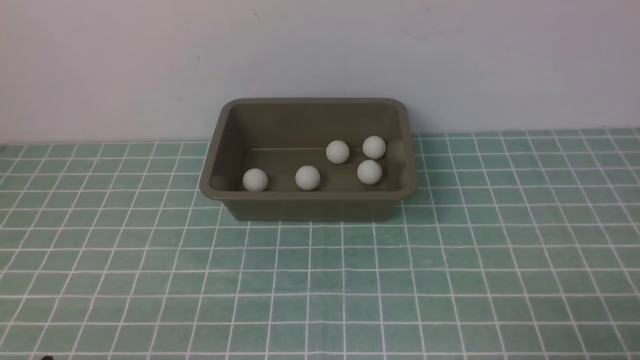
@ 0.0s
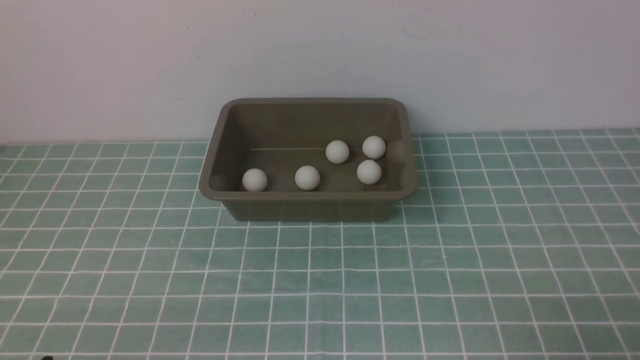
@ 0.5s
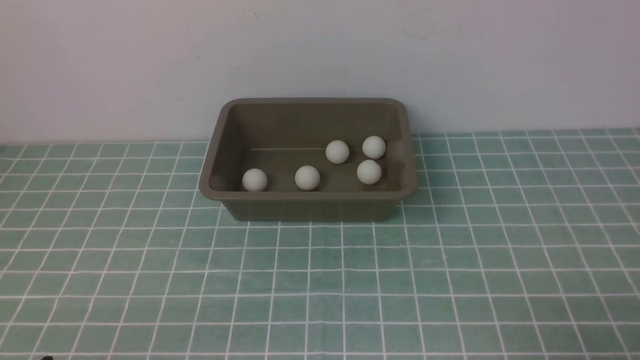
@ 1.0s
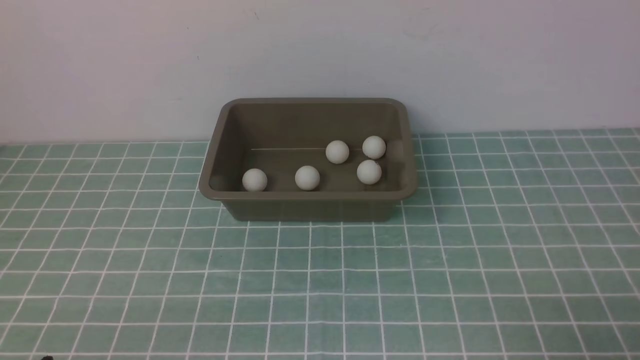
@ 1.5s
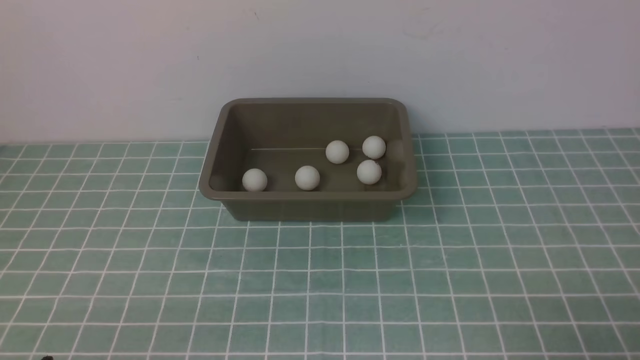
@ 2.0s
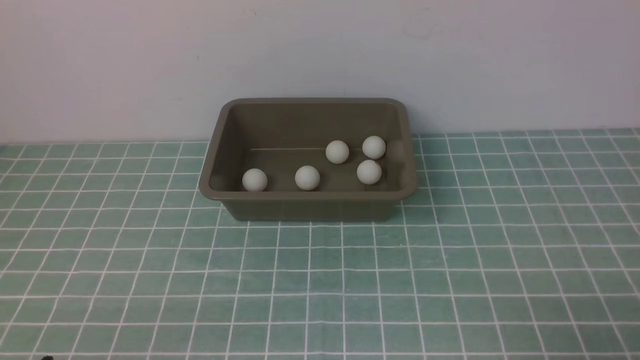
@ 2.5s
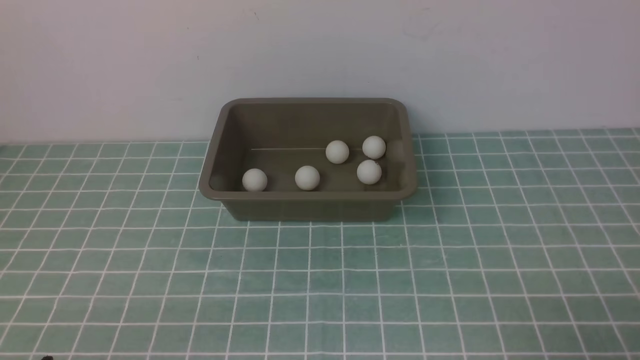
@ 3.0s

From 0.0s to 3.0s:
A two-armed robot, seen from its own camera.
From 0.0s to 3.0s: The two grippers keep their place.

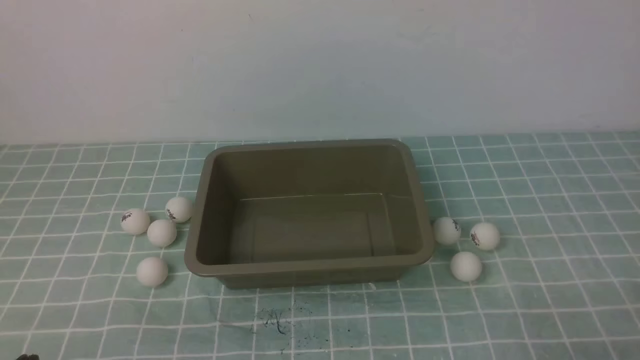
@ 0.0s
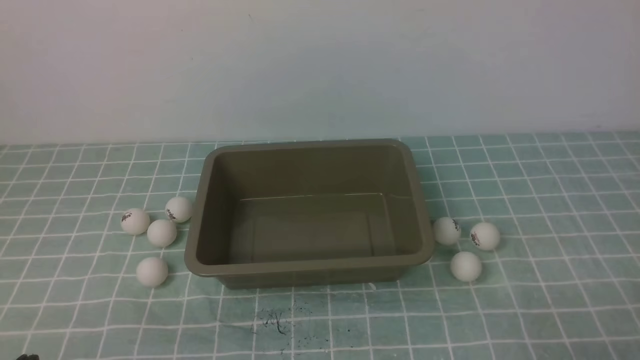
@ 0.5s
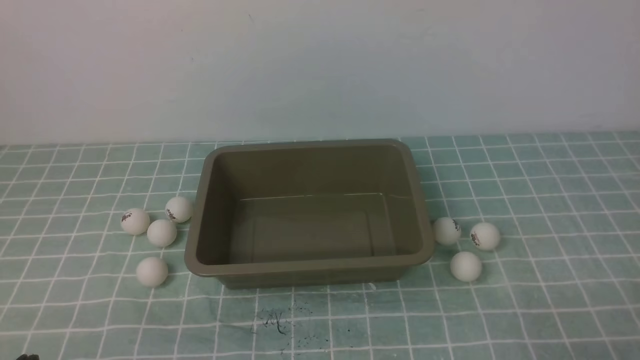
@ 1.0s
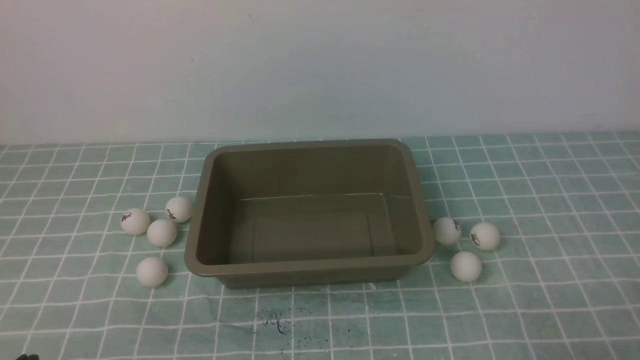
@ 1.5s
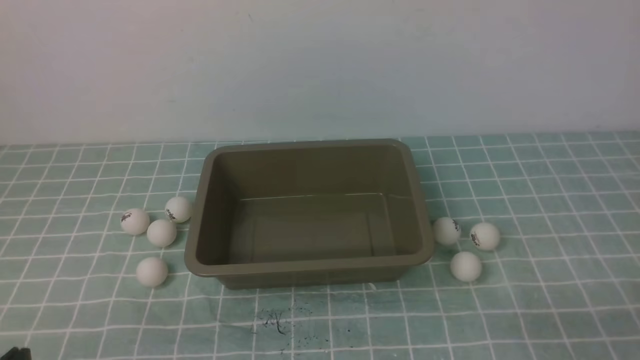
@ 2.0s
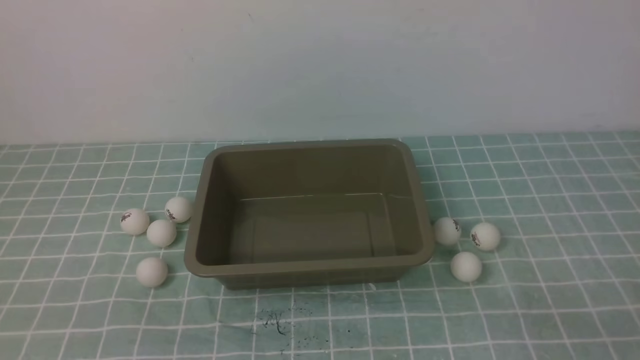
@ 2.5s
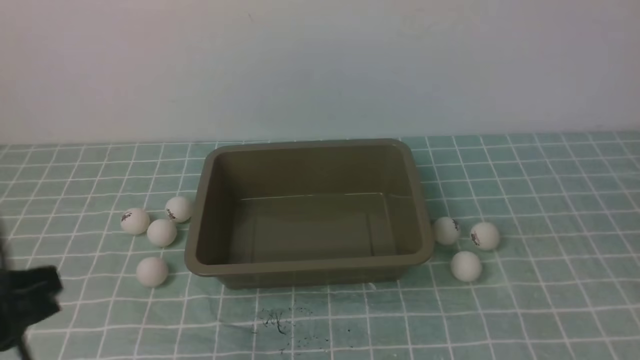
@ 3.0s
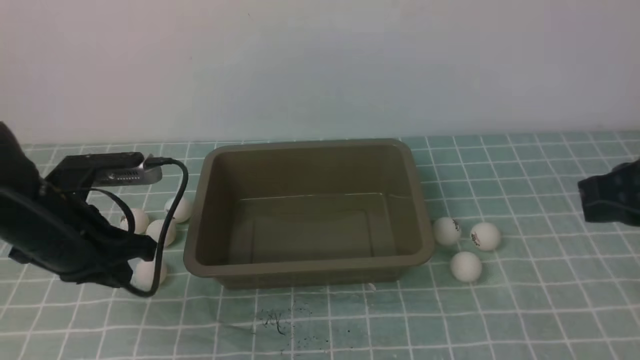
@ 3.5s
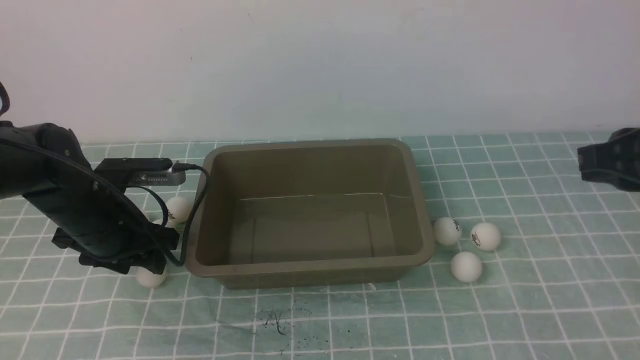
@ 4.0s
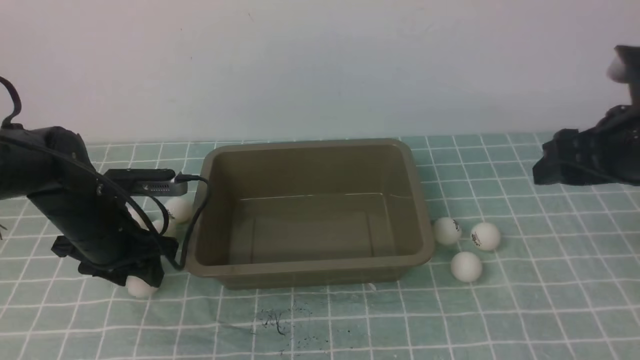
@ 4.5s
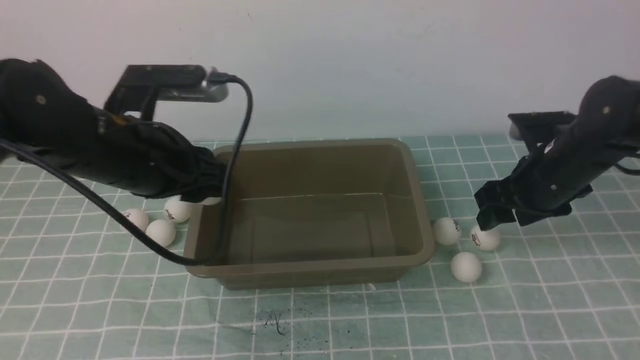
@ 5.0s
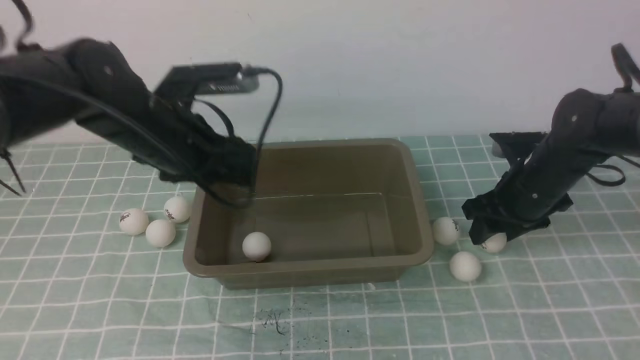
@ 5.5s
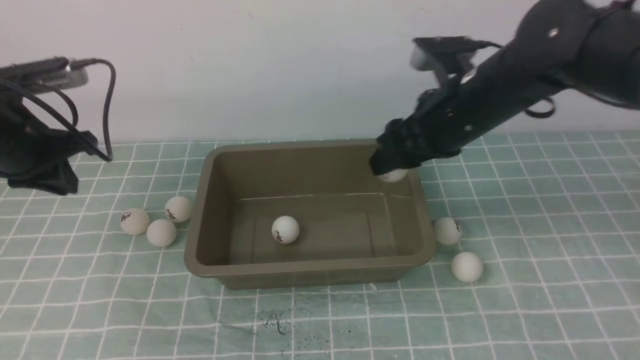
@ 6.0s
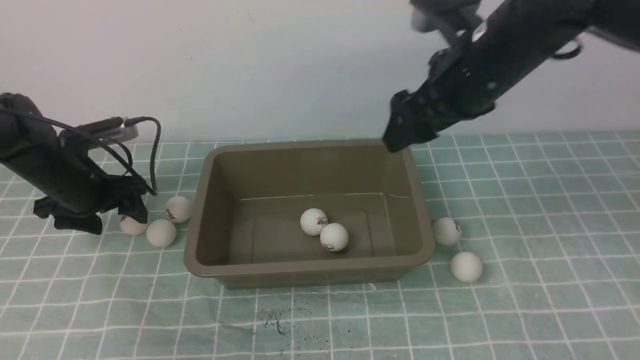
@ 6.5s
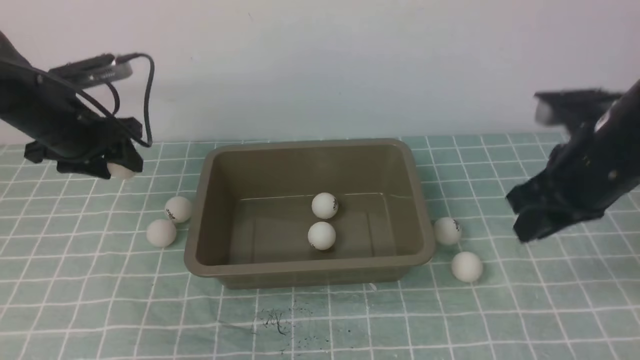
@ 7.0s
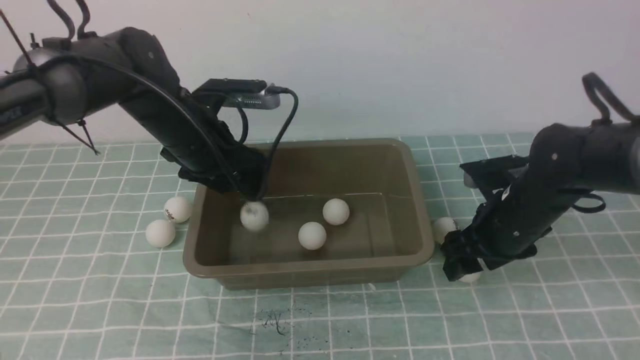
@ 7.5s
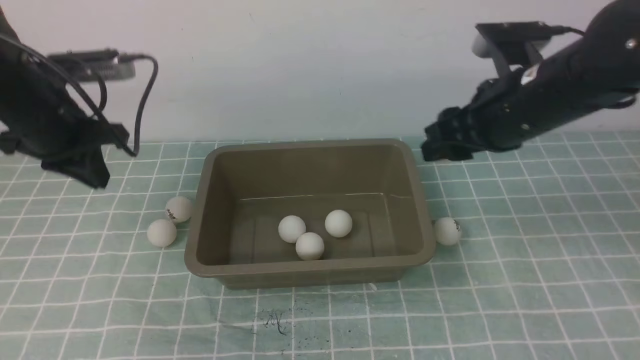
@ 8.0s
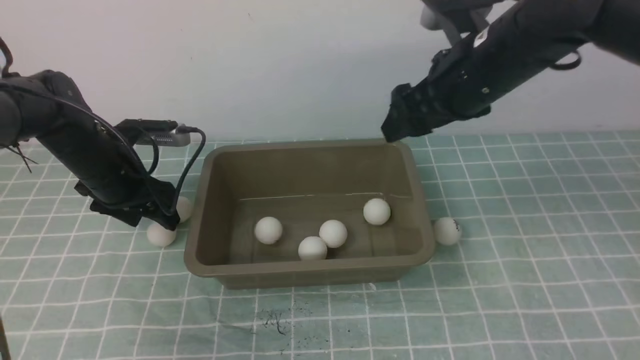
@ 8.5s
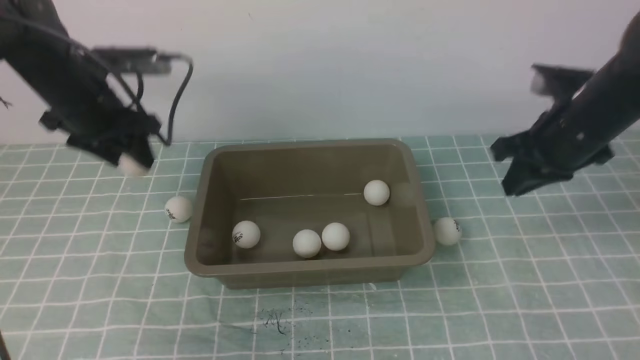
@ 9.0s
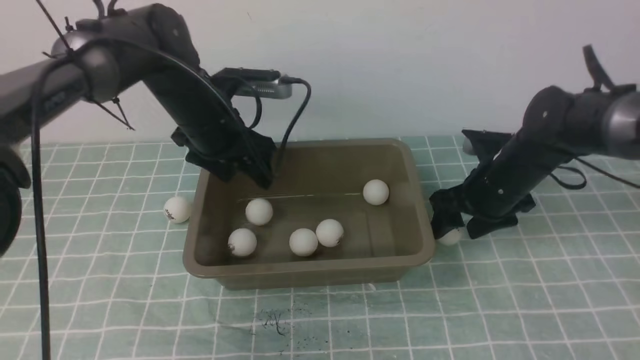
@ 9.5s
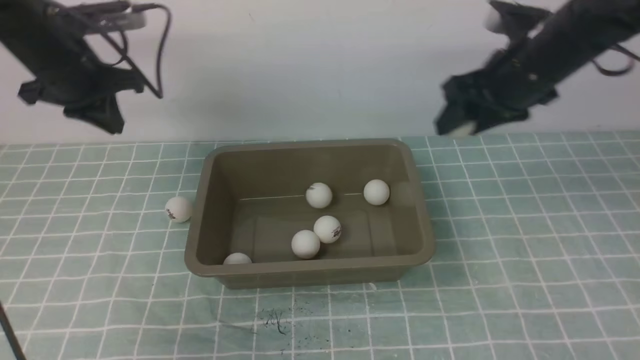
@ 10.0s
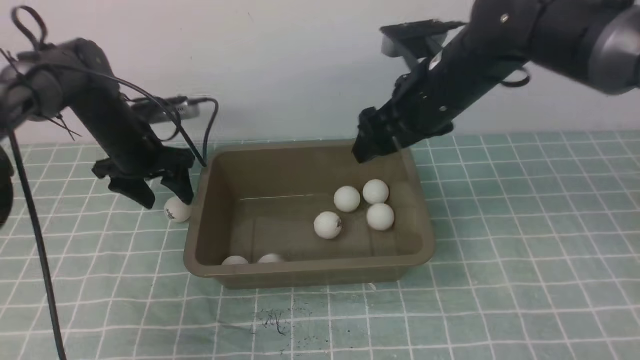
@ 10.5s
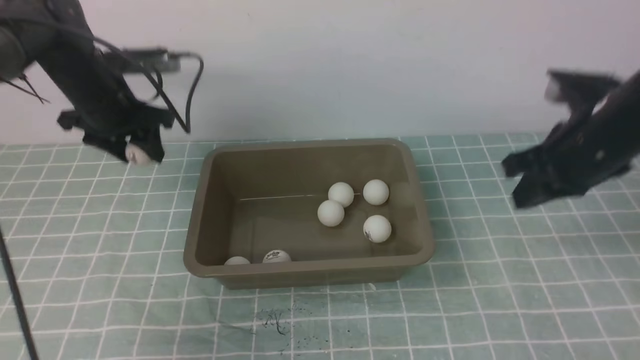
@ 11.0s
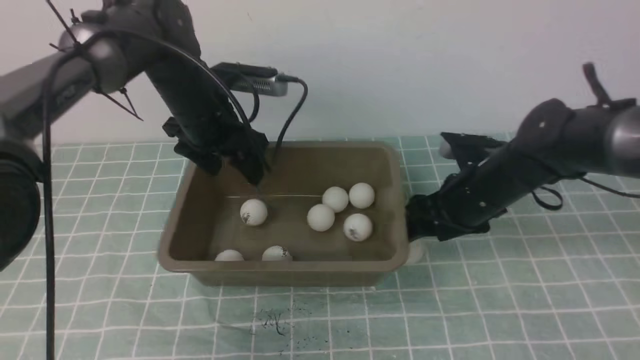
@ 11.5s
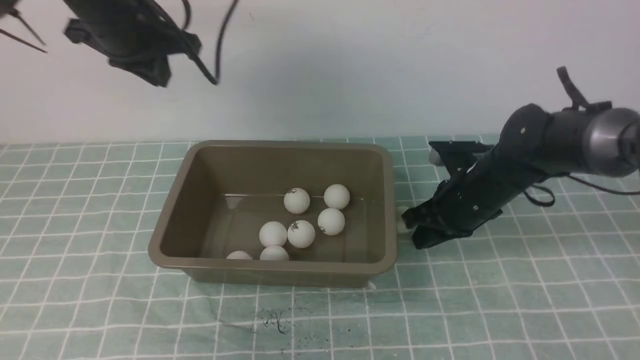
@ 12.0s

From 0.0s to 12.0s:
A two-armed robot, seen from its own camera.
Step, from 0.0s to 4.5s: use the left arm to clamp the table tennis ball closest to it.
Step, from 5.5s to 6.0s: use the right arm to clamp the table tennis ball closest to it.
Step, from 11.0s to 11.5s: use the left arm to put the table tennis ball into the box.
From 2.0s to 4.0s: The left gripper heads forward, covering roughly 25 cm, and opens its fingers; the right gripper goes some 25 cm forward and upward.
From 4.0s to 6.0s: The left gripper travels upward and to the left by roughly 10 cm, and closes, while the right gripper moves to the left and forward, approximately 20 cm, and opens its fingers.
From 6.0s to 8.0s: The left gripper travels to the right and back again, about 15 cm each way, and opens and closes again. The right gripper moves up and down over roughly 15 cm, changing direction 2 times.
From 8.0s to 10.0s: Both grippers move forward, roughly 5 cm. The right gripper goes downward and returns, approximately 10 cm each way, and closes and opens again. Meanwhile the left gripper reaches roughly 10 cm to the right, then returns, and opens, then closes once more.
From 10.0s to 12.0s: The left gripper shifts about 10 cm upward, and opens and closes again. Meanwhile the right gripper heads downward, covering about 10 cm, and closes its fingers.

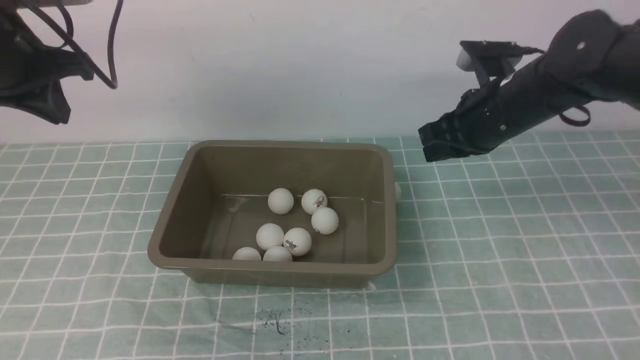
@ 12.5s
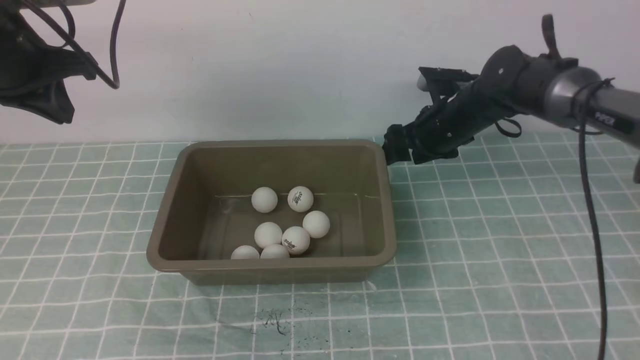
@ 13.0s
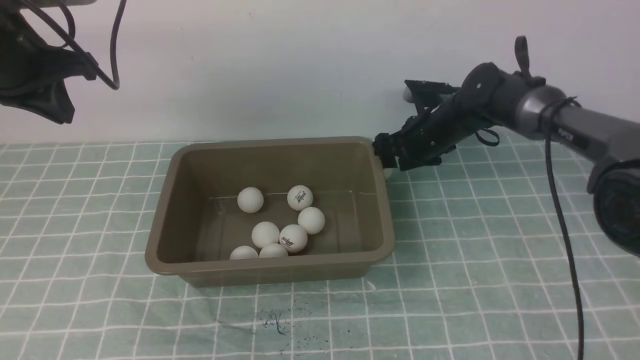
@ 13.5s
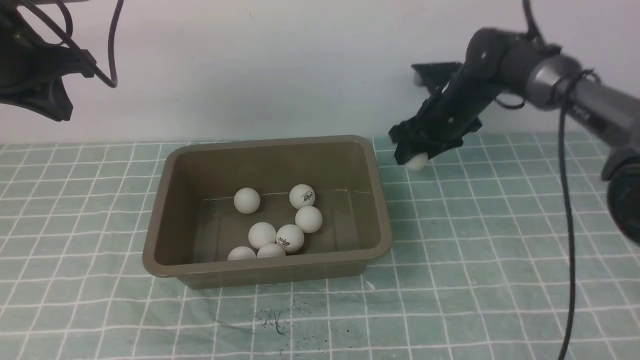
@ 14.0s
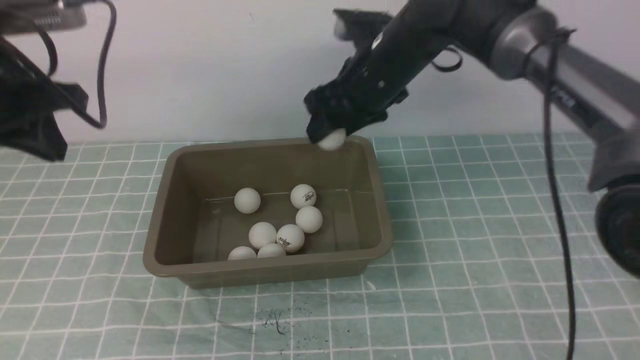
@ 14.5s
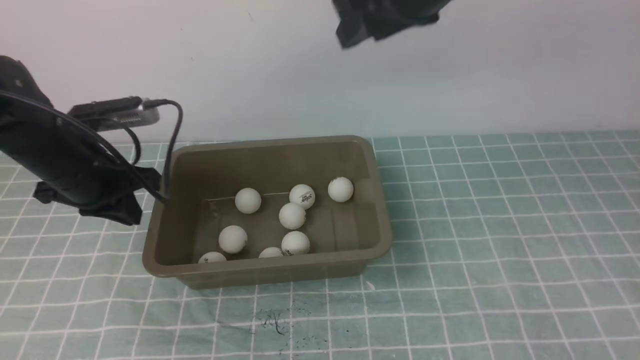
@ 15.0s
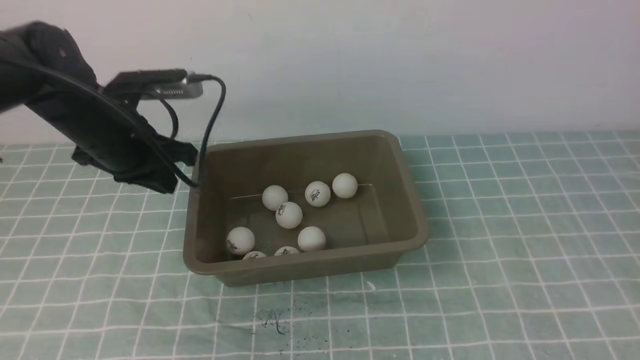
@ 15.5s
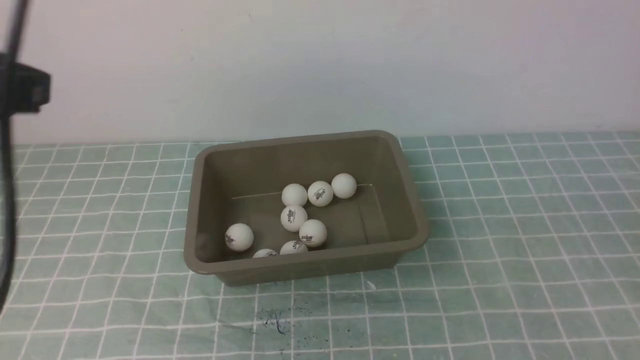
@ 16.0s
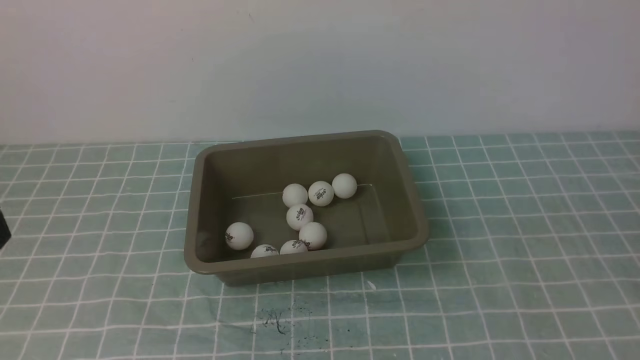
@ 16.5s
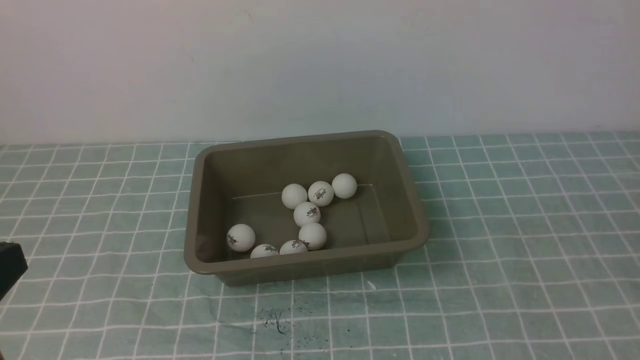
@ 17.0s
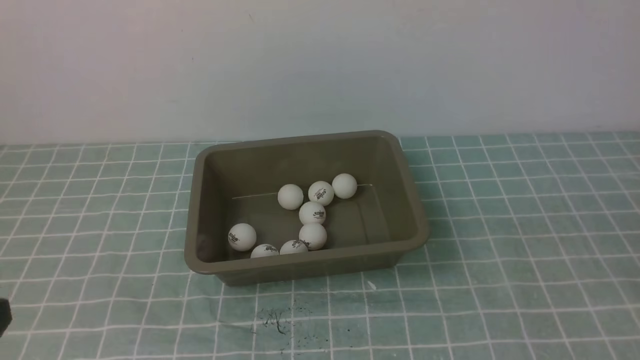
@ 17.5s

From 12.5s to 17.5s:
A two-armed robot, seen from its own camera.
From 12.5s to 15.0s: The right gripper shifts roughly 20 cm upward, and opens and closes again; the left gripper moves downward, some 15 cm.
From 15.0s to 17.5s: The right gripper goes approximately 35 cm backward, to the right and downward, and closes up; the left gripper travels backward by approximately 30 cm.
